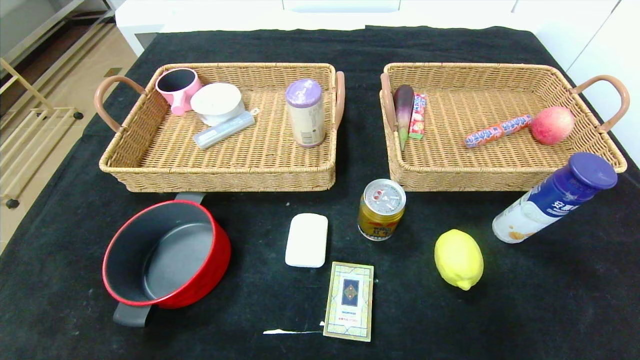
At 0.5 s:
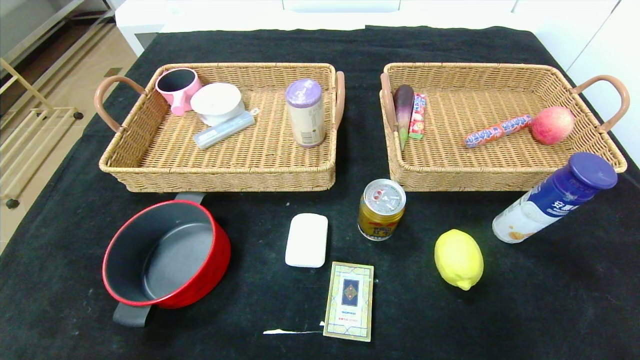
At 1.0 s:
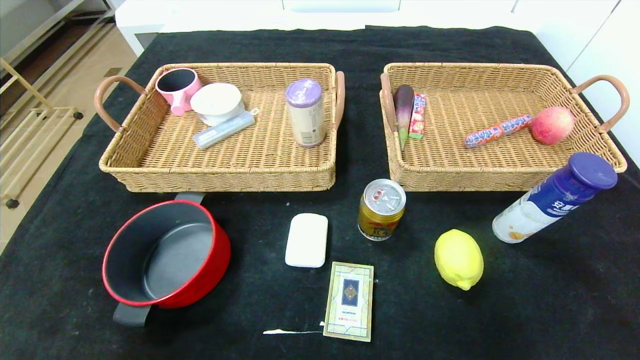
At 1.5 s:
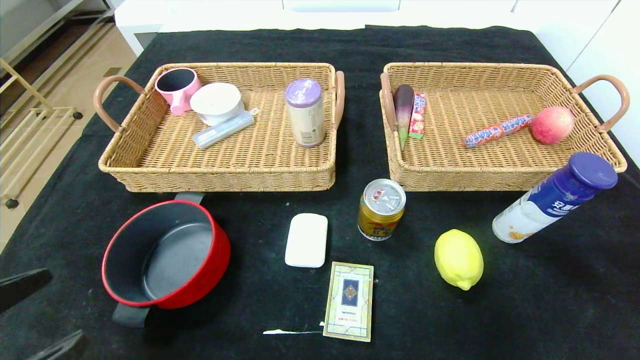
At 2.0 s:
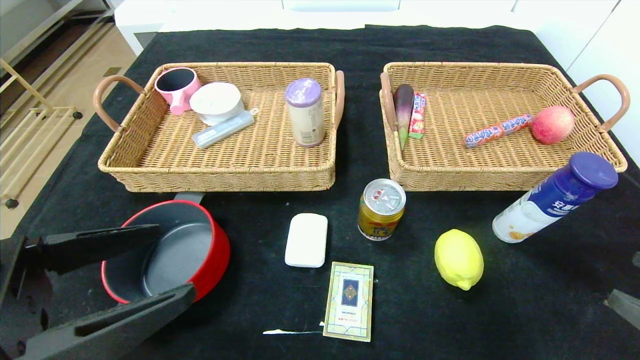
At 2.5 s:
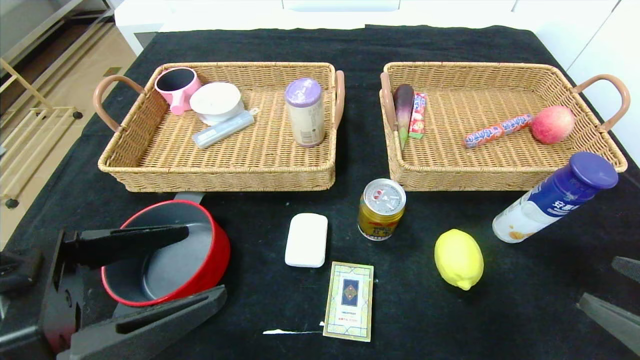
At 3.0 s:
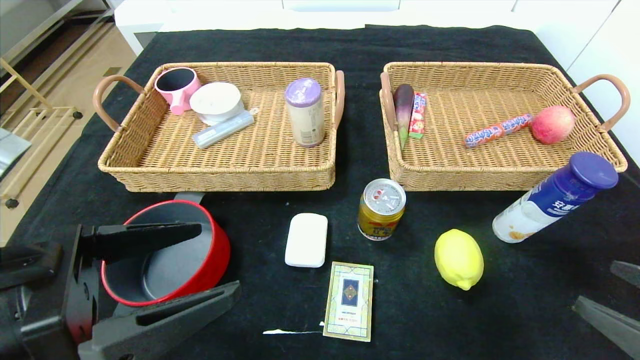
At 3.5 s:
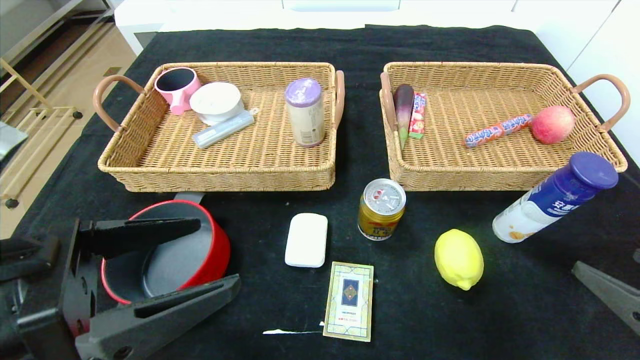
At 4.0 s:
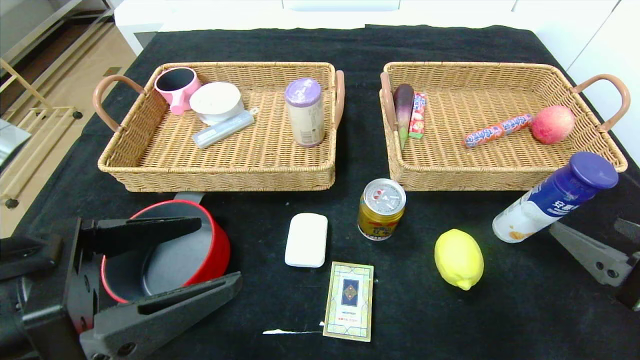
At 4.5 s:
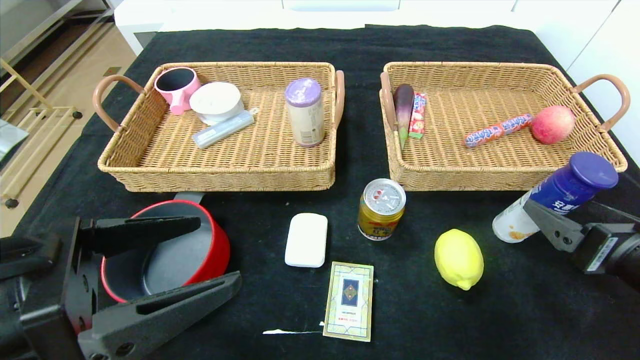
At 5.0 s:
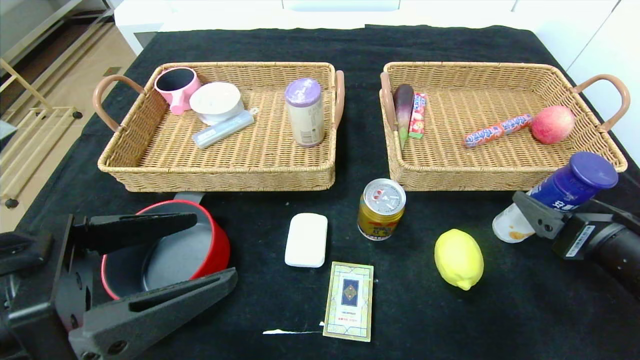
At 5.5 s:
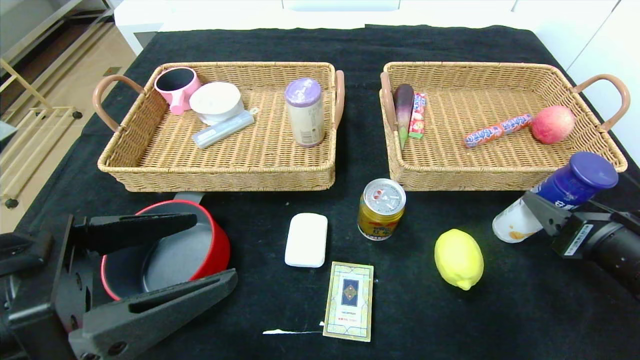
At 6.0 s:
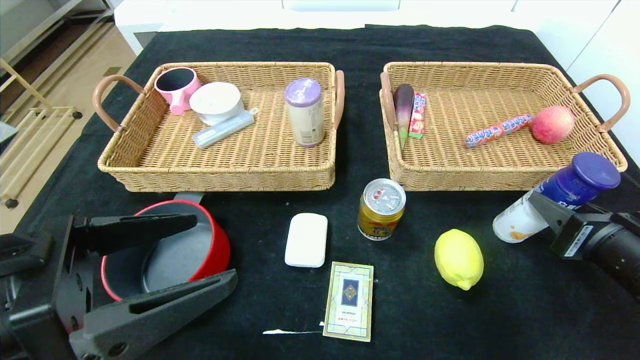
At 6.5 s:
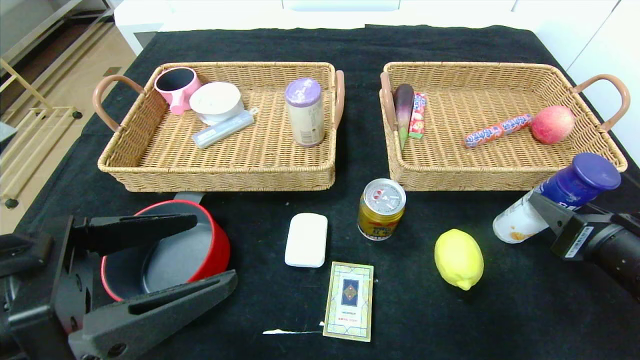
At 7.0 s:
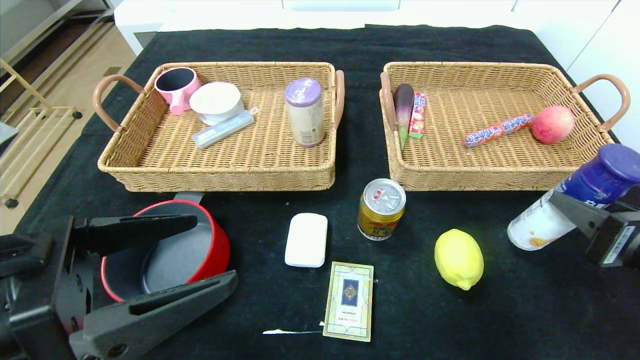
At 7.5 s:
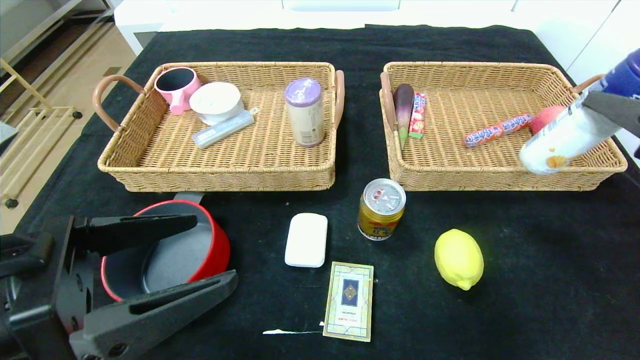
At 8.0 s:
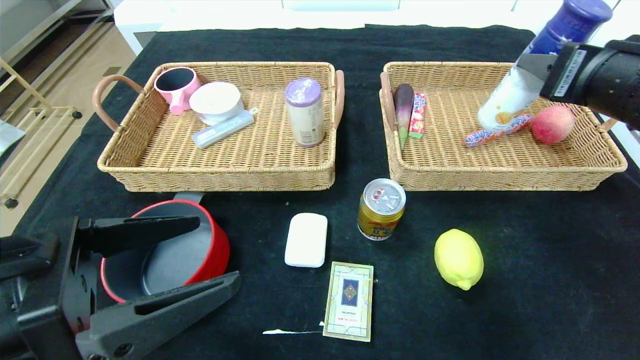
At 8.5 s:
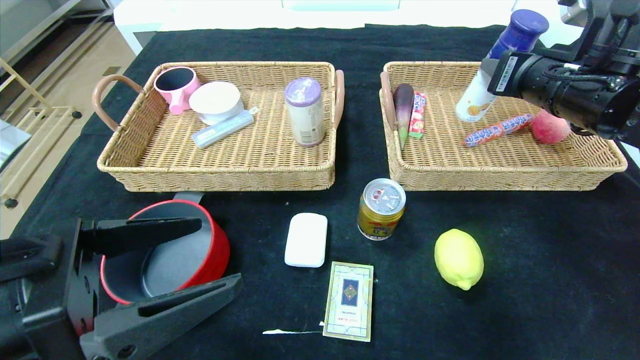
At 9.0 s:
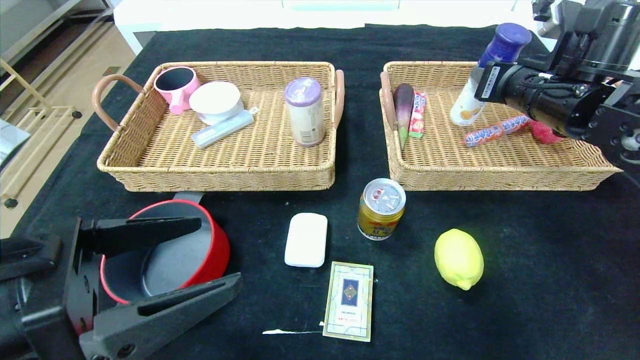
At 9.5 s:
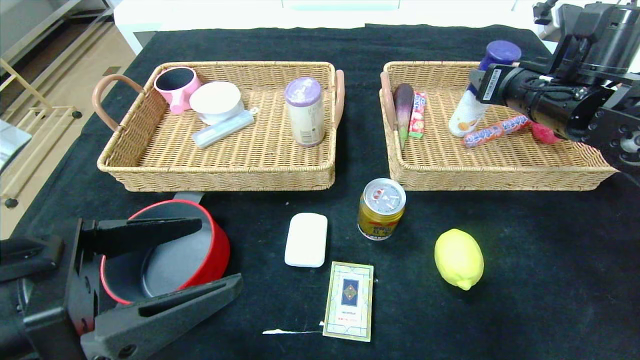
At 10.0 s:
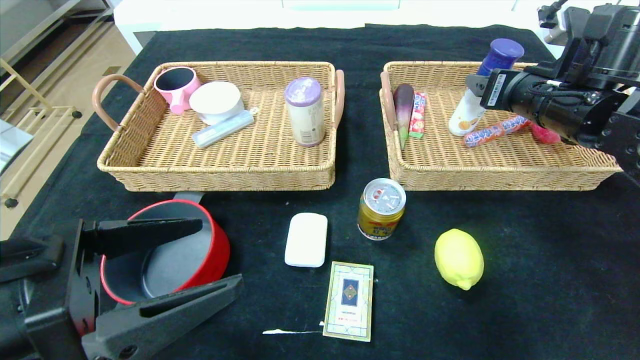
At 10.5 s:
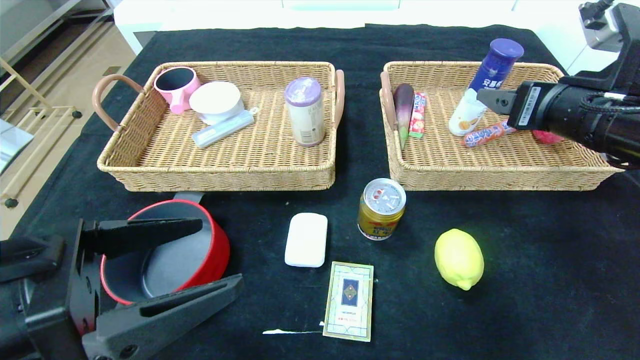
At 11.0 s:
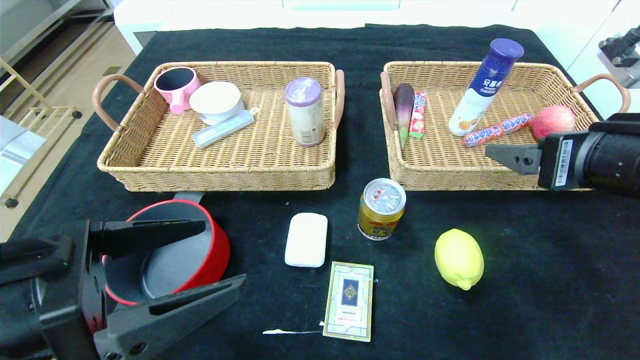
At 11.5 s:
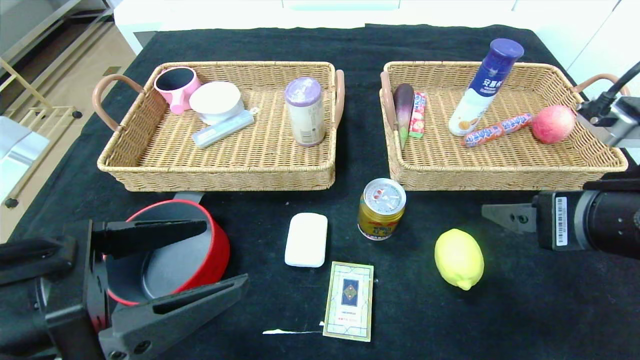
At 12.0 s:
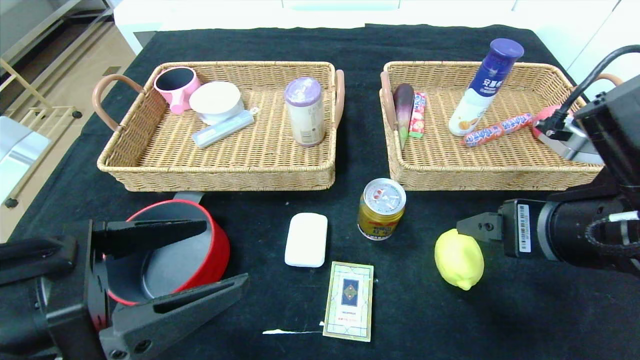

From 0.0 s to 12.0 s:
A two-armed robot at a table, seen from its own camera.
Step, from 0.0 s to 9.5 s: Grasp the yogurt and put it in the right basket.
From 0.0 s to 2.0 s: Both grippers move upward and forward, some 20 cm.
From 2.0 s to 4.0 s: The right gripper travels forward by approximately 5 cm.
From 4.0 s to 6.0 s: The right gripper shifts roughly 5 cm forward, and closes up.
From 6.0 s to 8.0 s: The right gripper shifts approximately 15 cm upward and forward.
From 8.0 s to 10.0 s: The right gripper travels forward by about 10 cm, and opens its fingers.
From 10.0 s to 12.0 s: The right gripper heads backward, covering about 15 cm.

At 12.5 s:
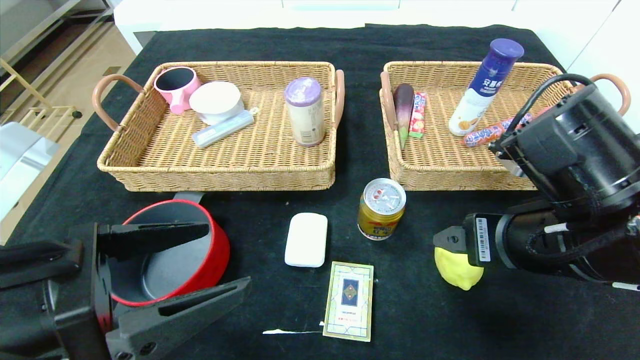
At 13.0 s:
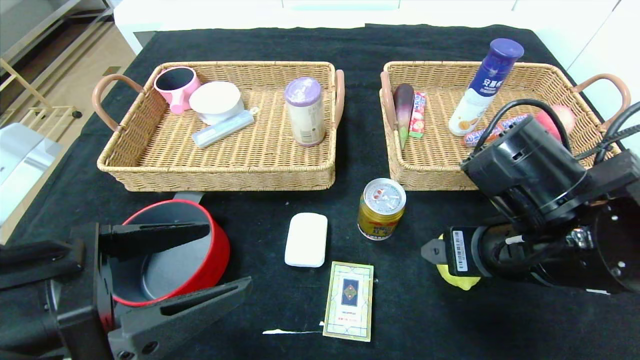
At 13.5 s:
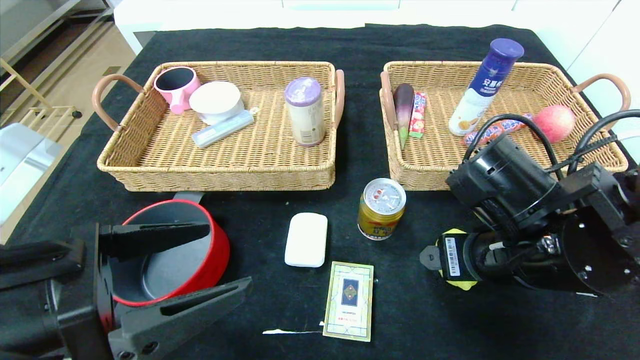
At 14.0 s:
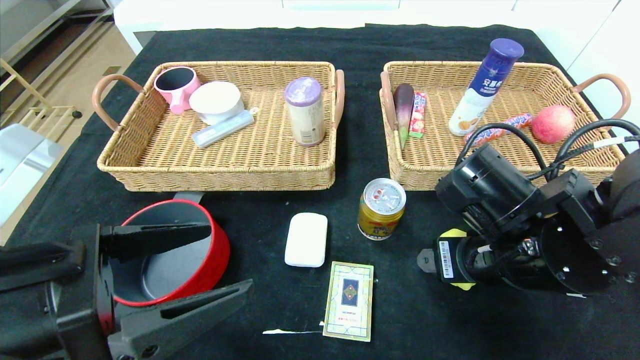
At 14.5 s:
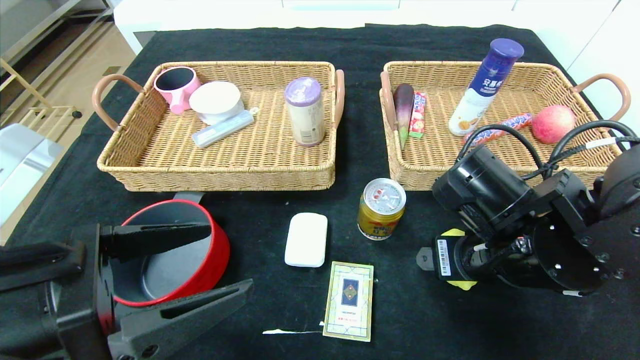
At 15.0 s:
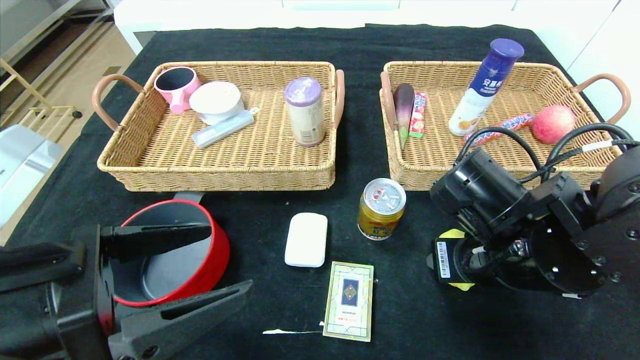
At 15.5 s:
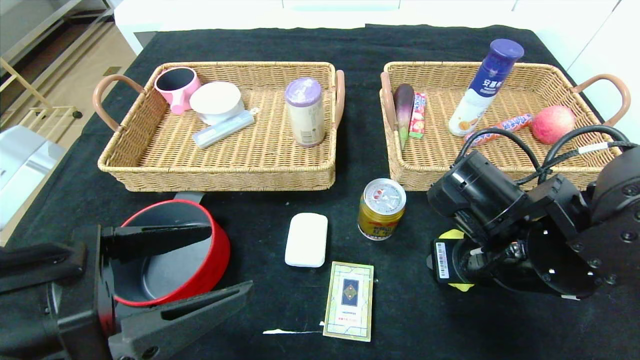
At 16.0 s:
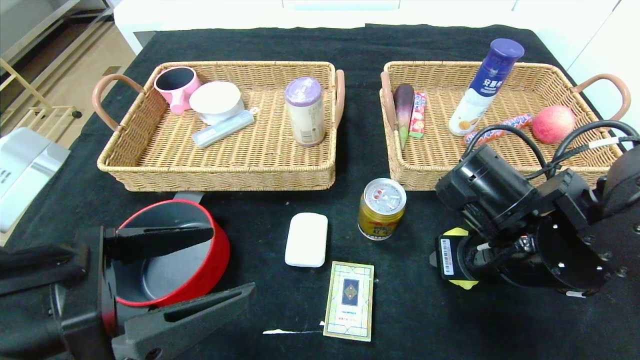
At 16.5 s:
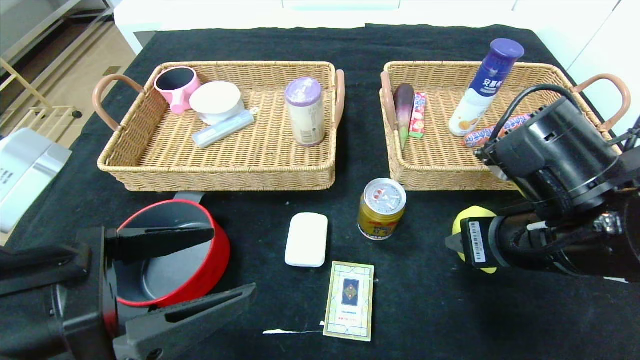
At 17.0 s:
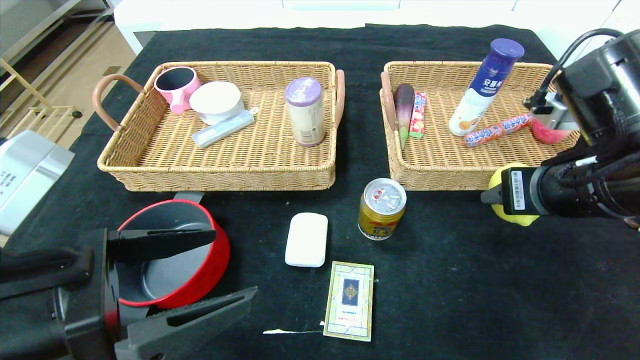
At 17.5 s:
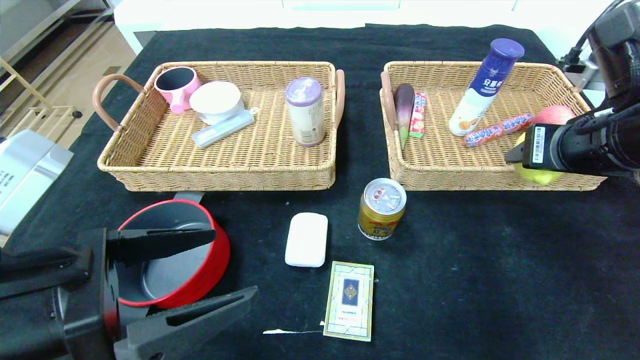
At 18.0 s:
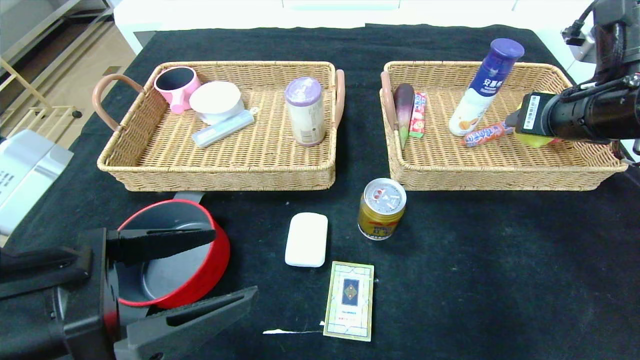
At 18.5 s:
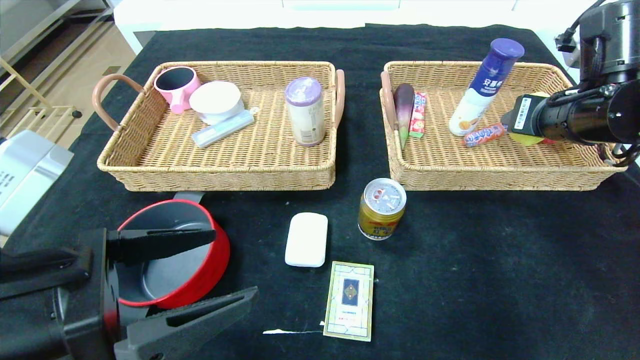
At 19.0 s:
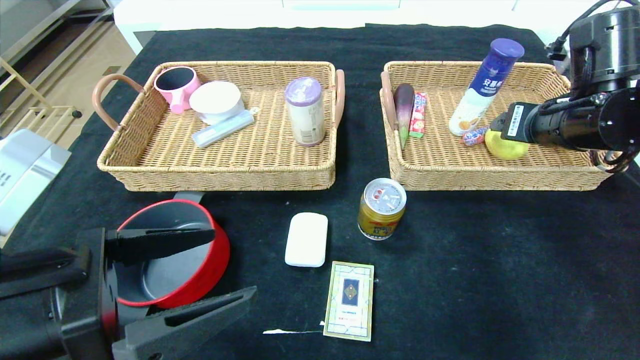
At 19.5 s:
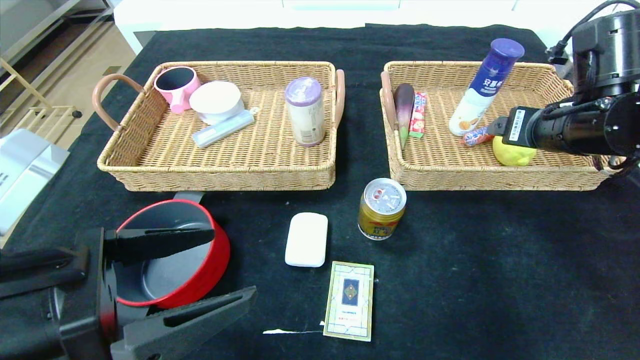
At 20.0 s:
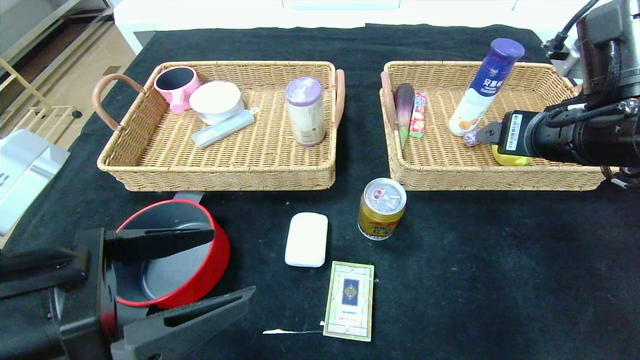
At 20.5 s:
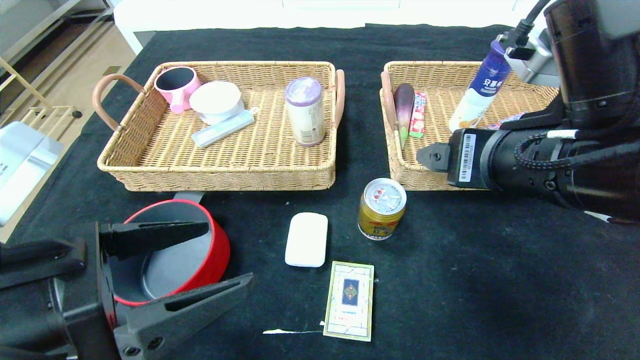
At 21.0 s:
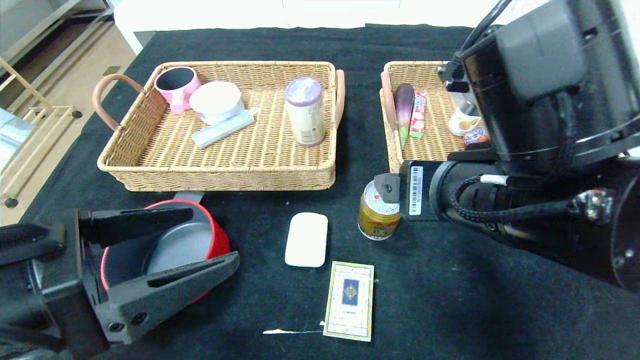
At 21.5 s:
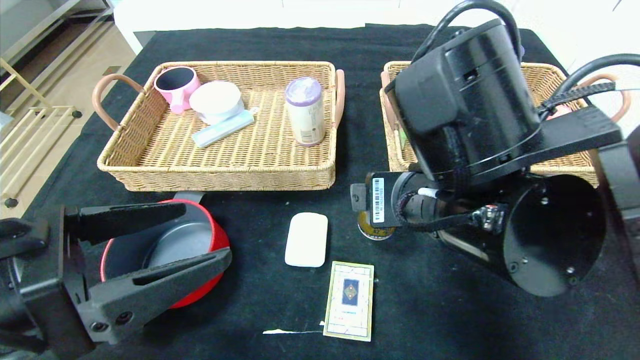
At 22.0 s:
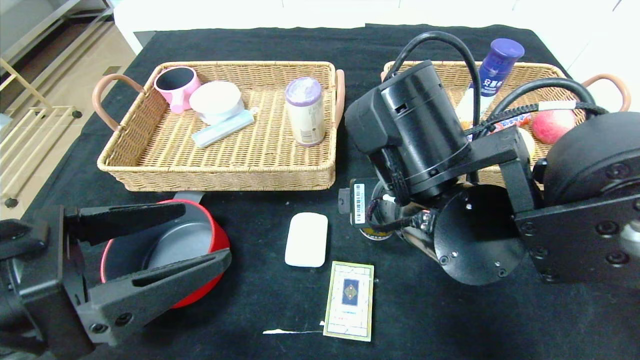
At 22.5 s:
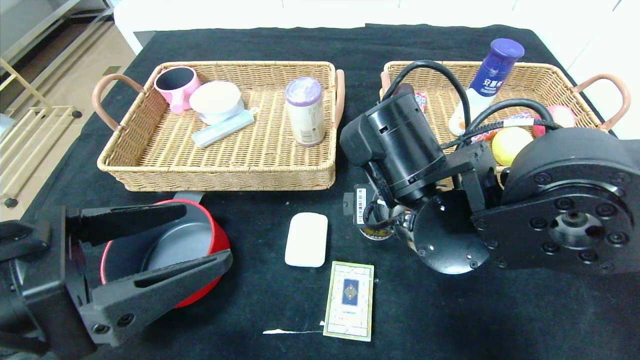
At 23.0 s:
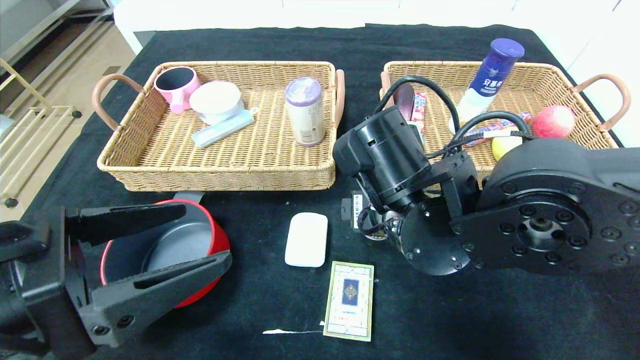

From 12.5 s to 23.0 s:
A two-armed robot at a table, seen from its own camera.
Step, from 12.5 s to 19.5 s: Grasp the lemon and put it in the right basket.
From 12.5 s to 14.5 s: The right gripper shifts by roughly 5 cm.
From 14.5 s to 16.5 s: The right gripper closes up.
From 16.5 s to 19.0 s: The right gripper moves forward, to the right and upward, roughly 15 cm, and opens up.
From 19.0 s to 21.0 s: The right gripper travels to the left and backward by some 20 cm.
From 21.0 s to 23.0 s: The right gripper goes roughly 10 cm forward and downward.
